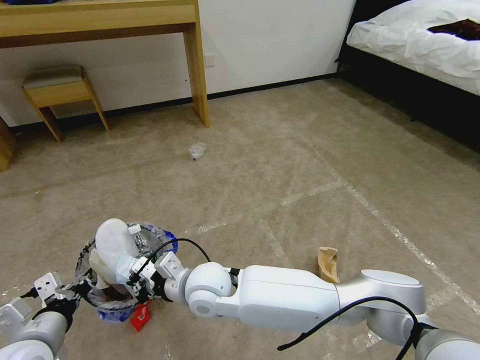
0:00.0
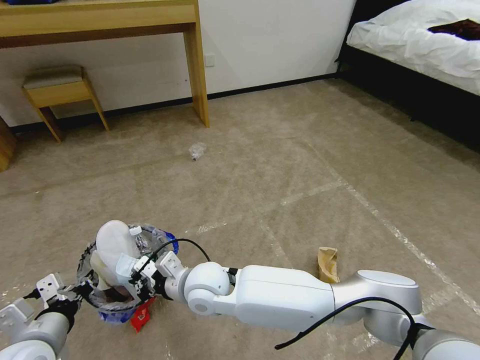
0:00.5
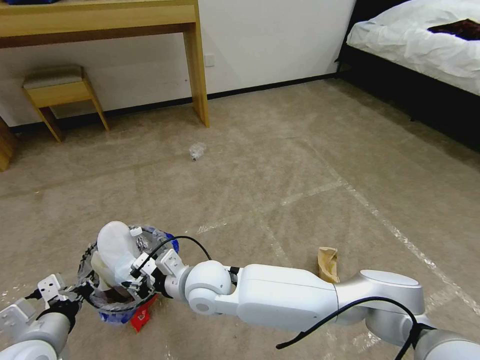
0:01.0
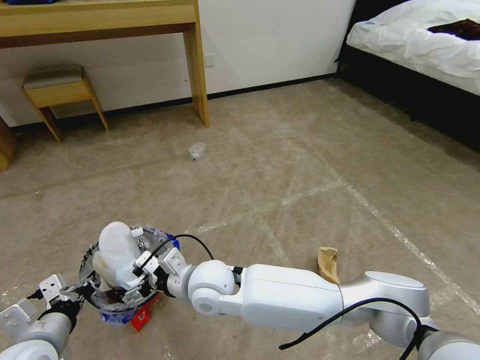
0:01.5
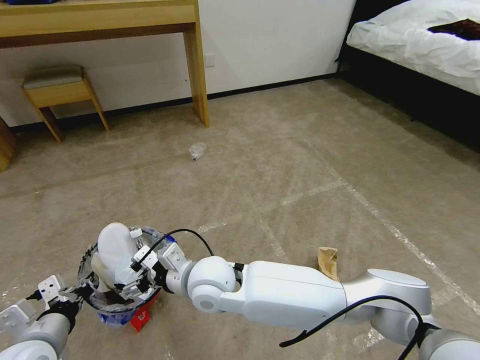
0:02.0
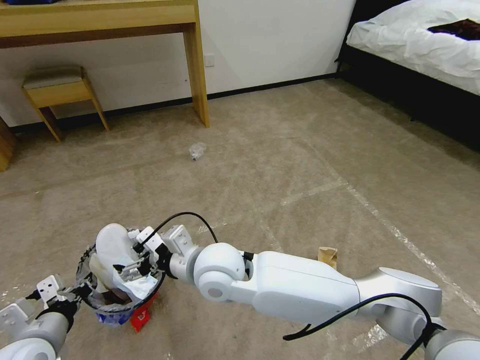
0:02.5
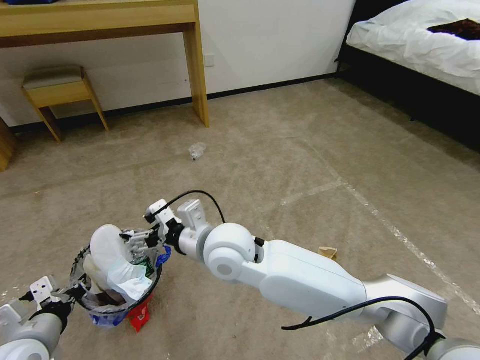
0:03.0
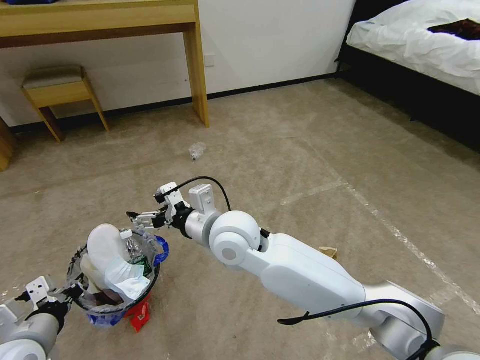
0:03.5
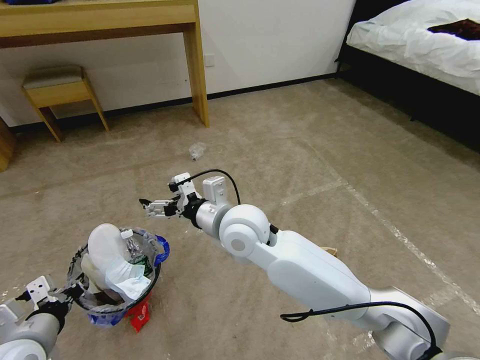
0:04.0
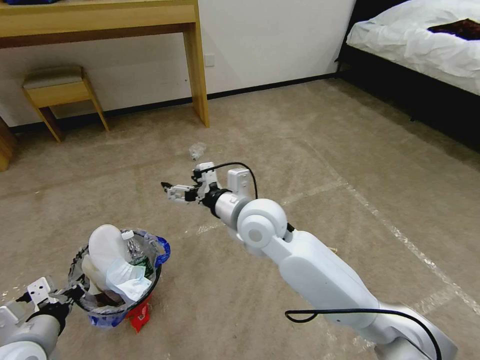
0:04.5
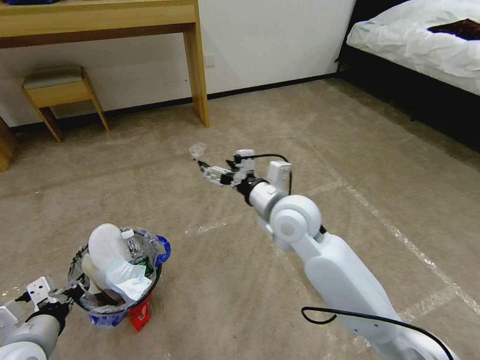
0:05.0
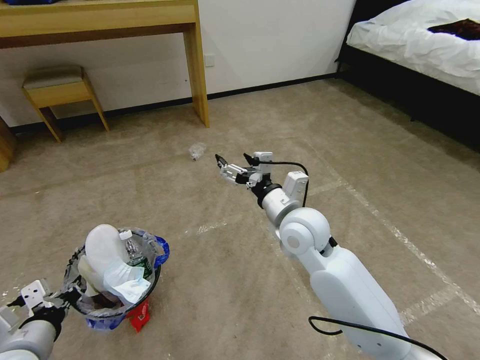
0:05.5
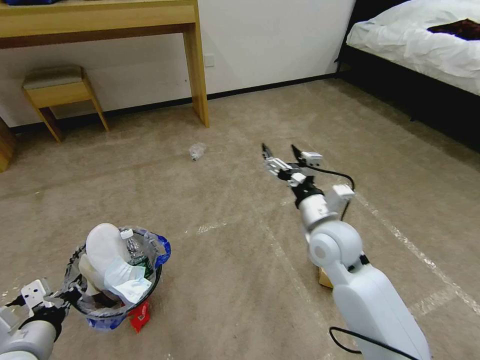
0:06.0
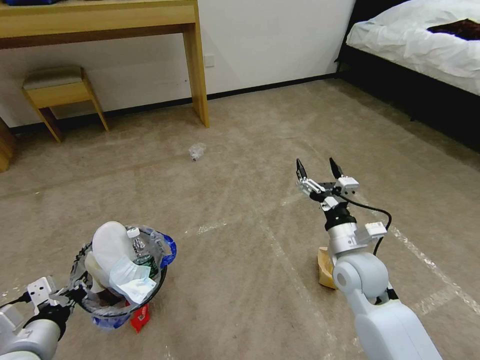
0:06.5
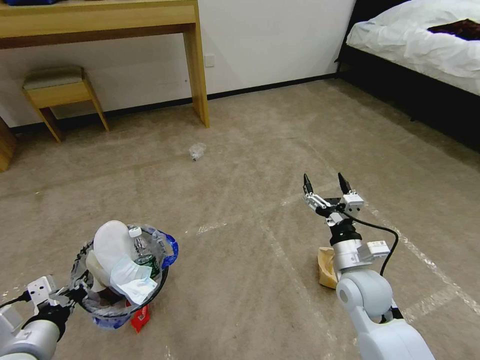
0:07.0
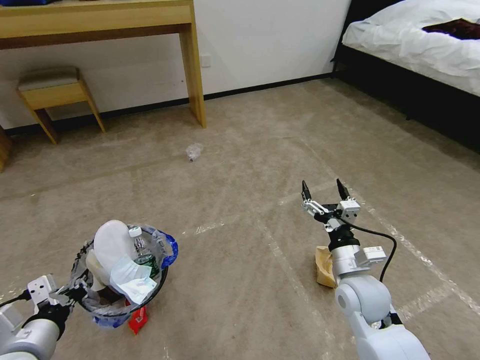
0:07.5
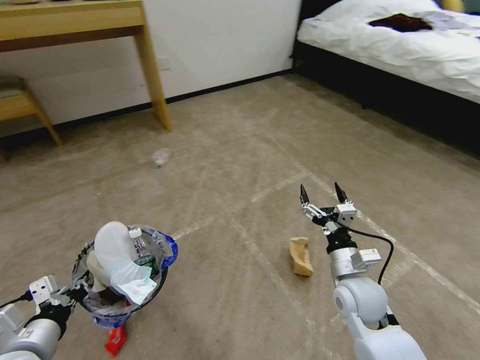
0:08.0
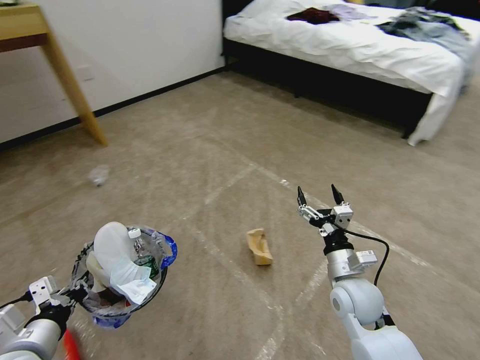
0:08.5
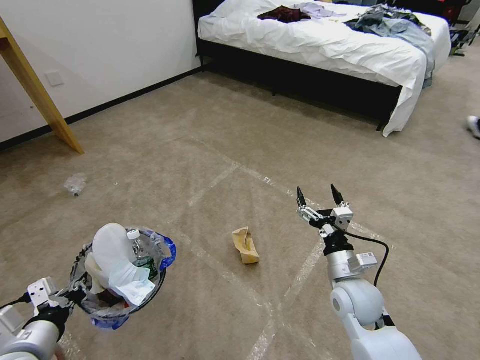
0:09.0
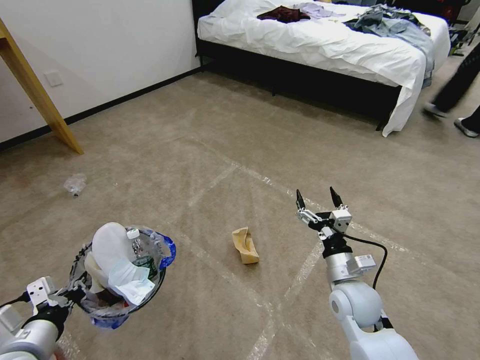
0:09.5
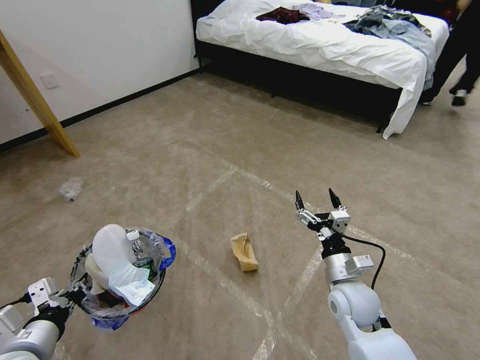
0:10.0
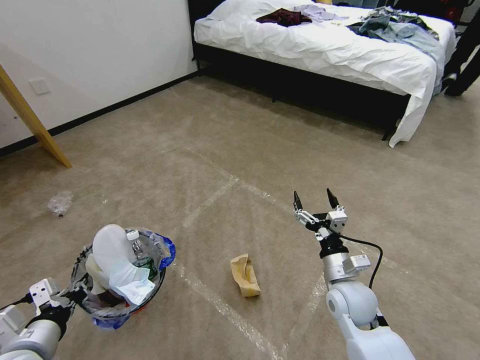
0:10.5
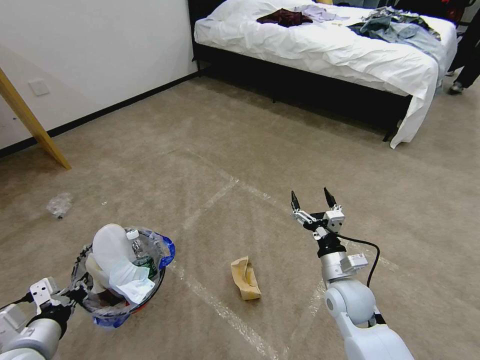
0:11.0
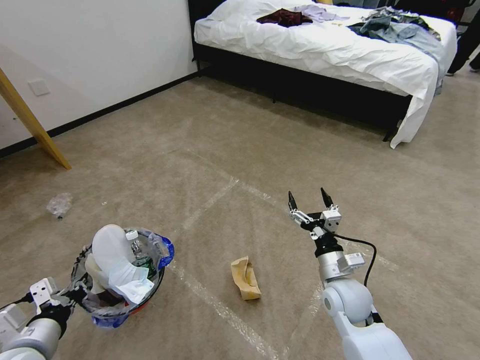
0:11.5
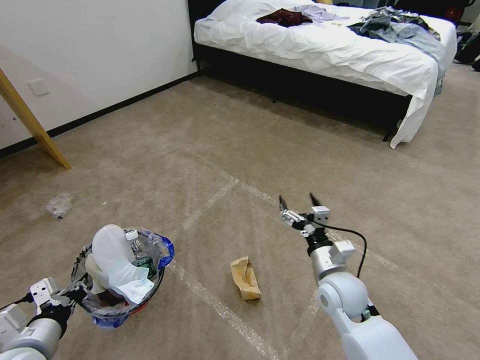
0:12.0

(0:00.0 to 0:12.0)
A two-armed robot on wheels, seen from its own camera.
Task of the whole recording: Pick up the trash bin and place the garbage on the floor into it.
0:00.0 - 0:02.0: The right gripper opens up.
0:02.0 - 0:04.0: The right gripper is displaced upward, to the right and forward by some 15 cm.
0:04.0 - 0:06.0: The right gripper travels to the right by roughly 20 cm.
0:06.0 - 0:08.0: The right gripper heads downward, backward and to the right, covering some 15 cm.
0:10.0 - 0:12.0: The grippers stay close to where they were, moving slightly.

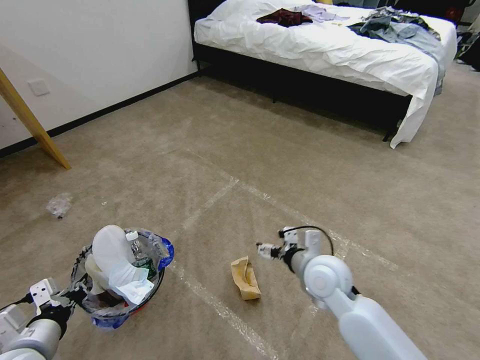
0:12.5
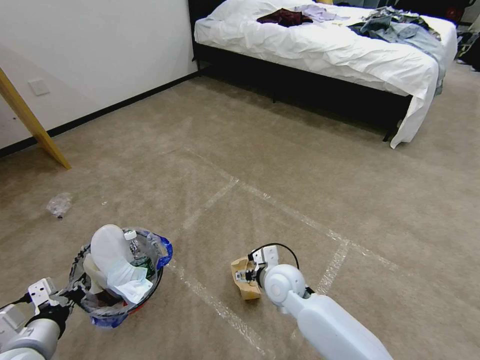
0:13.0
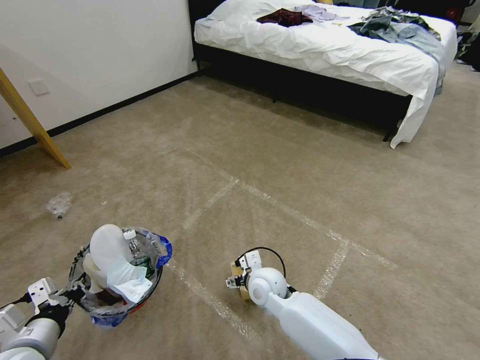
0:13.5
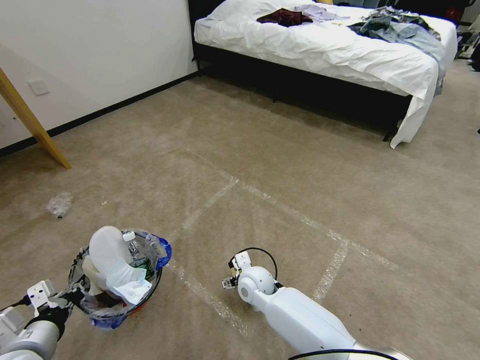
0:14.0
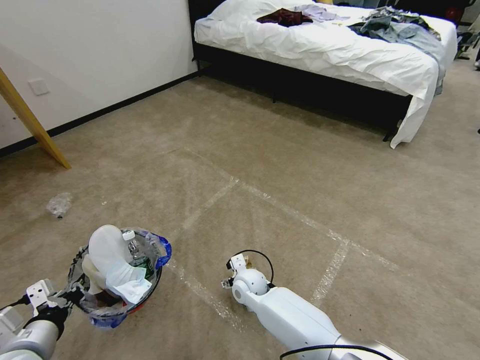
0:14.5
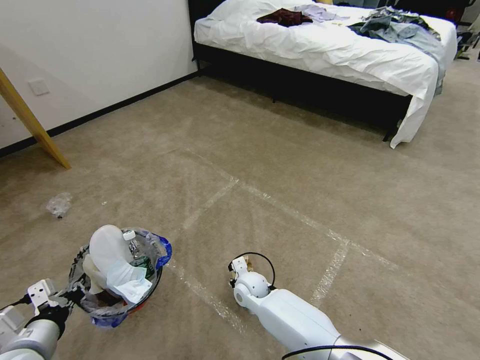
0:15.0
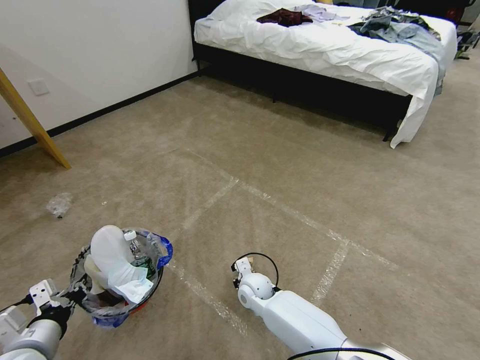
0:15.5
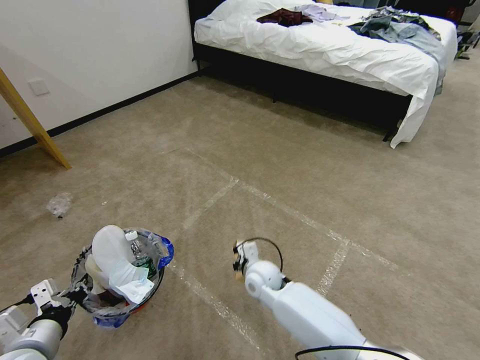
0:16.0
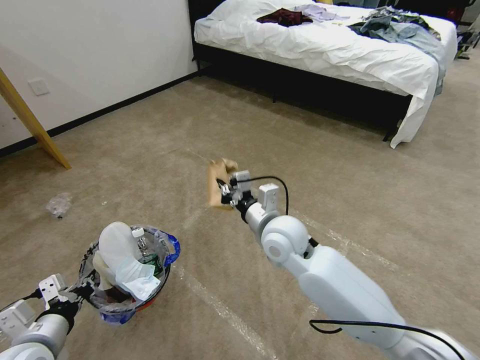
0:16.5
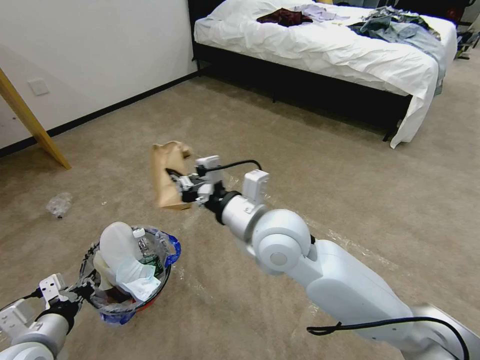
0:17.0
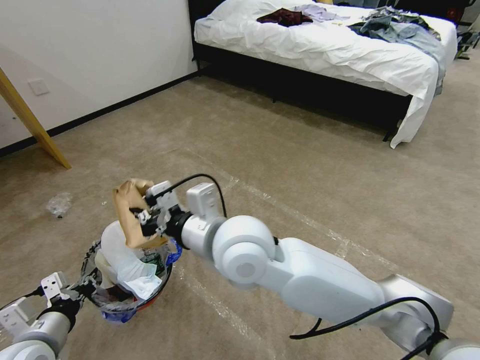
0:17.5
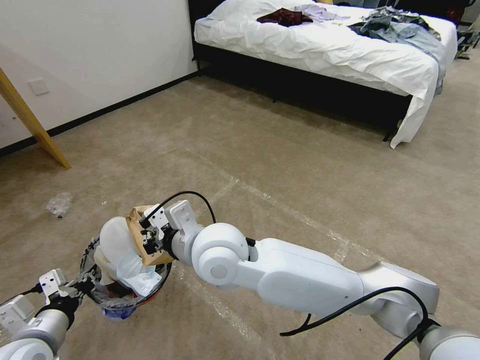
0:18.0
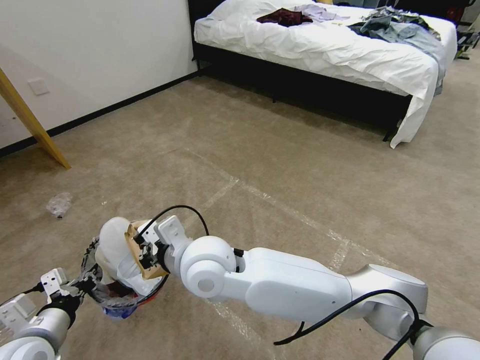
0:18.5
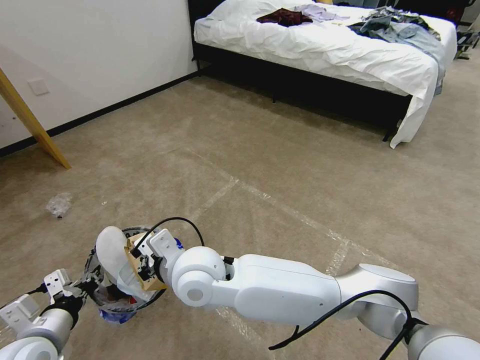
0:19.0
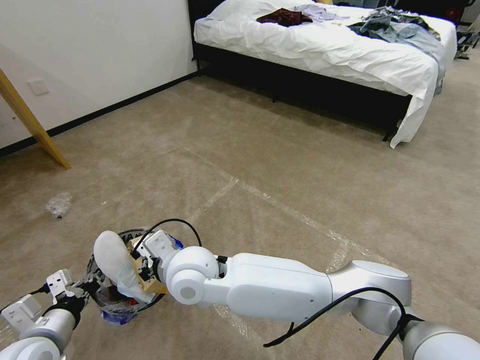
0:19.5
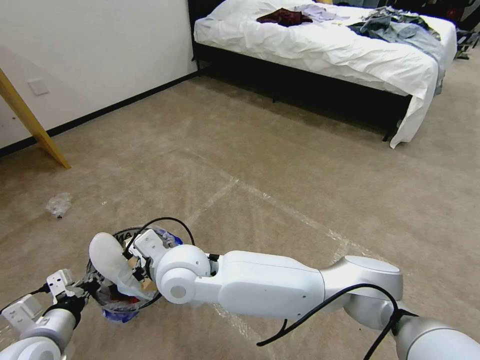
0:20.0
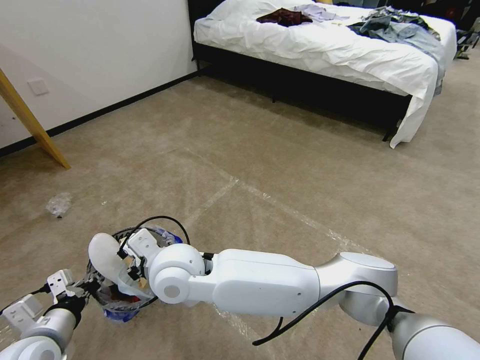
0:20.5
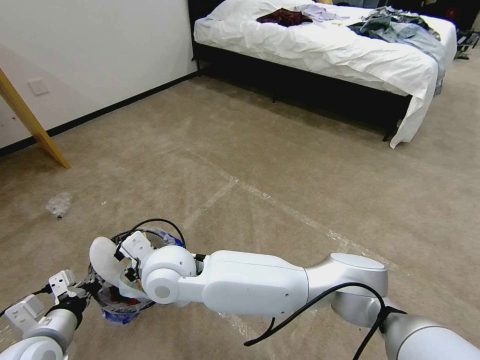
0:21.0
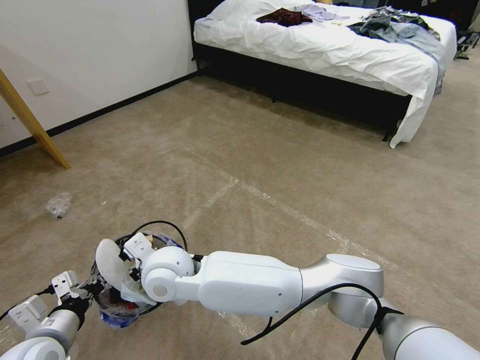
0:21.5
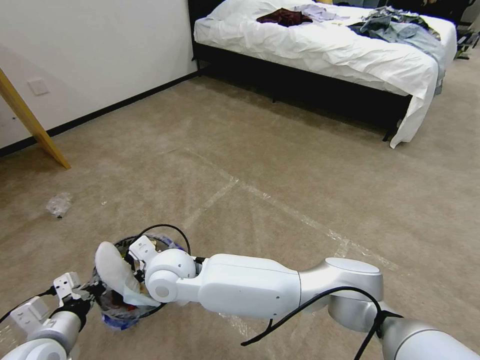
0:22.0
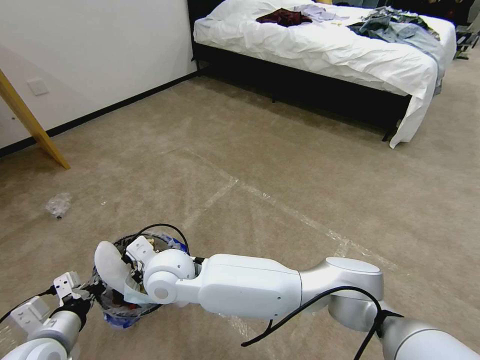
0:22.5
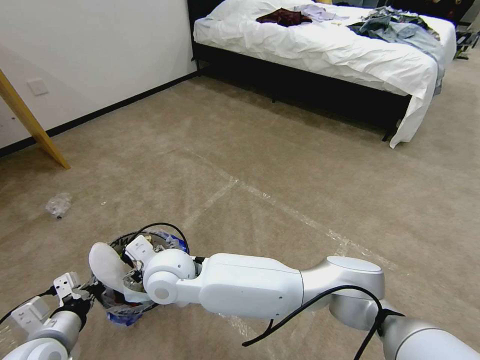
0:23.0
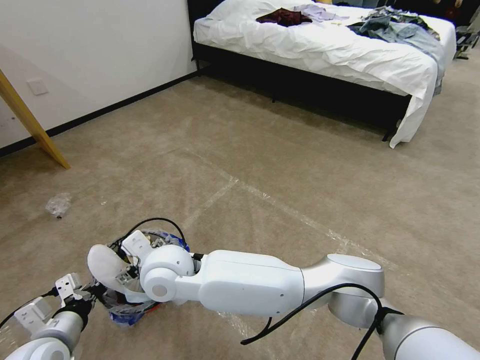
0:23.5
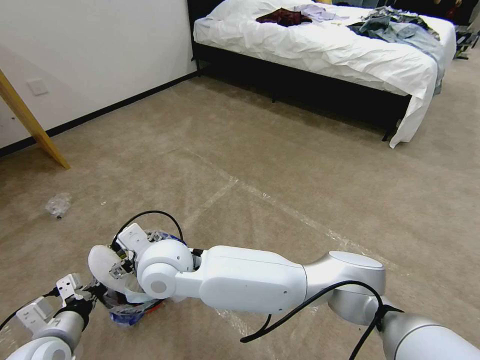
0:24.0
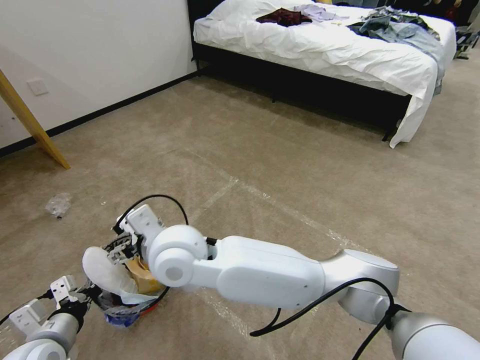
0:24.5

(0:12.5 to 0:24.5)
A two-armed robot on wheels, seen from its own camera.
Task of the whole recording: Pick up the trash bin and place the garbage on the floor into it.
0:12.5 - 0:14.5: The right gripper is displaced downward and to the left by roughly 25 cm.
0:14.5 - 0:16.5: The right gripper is displaced upward by about 20 cm, and closes its fingers.
0:16.5 - 0:18.5: The right gripper travels to the left, backward and upward by about 20 cm.
0:18.5 - 0:20.5: The right gripper heads to the left, covering roughly 5 cm.
0:20.5 - 0:22.5: The right gripper moves some 5 cm.
0:22.5 - 0:24.5: The right gripper is displaced upward by some 10 cm, and opens.

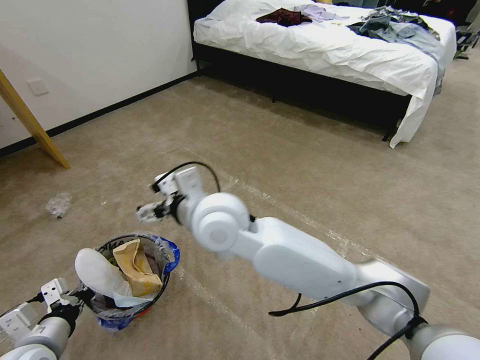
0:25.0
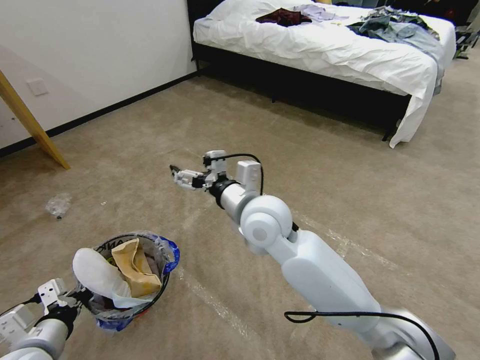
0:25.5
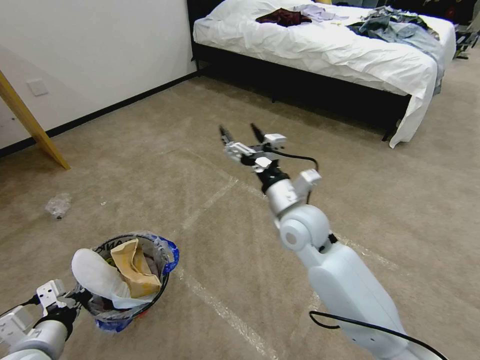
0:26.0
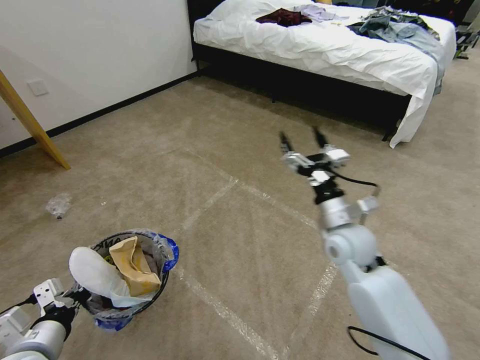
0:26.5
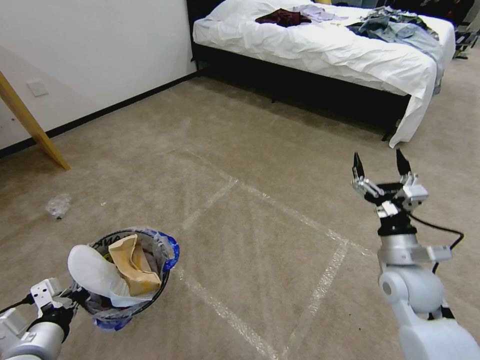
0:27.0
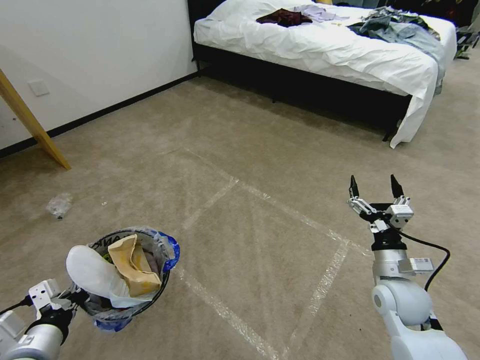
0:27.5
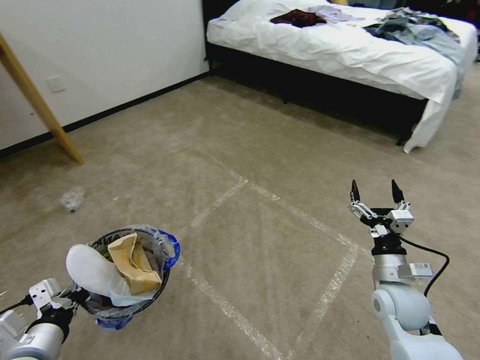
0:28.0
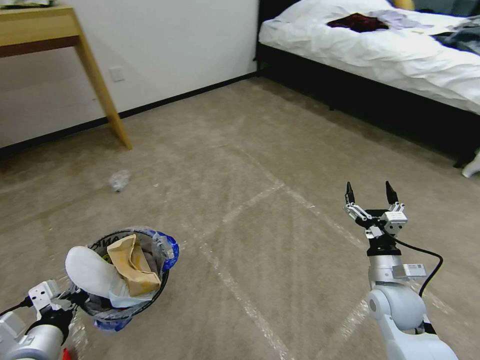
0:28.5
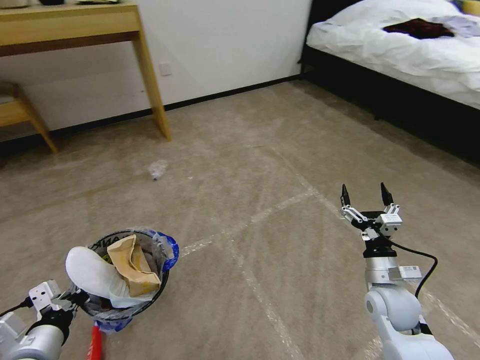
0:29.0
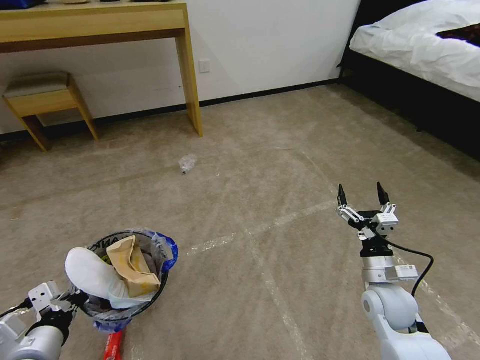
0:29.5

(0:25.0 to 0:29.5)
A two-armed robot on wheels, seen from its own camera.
Task of the whole recording: Pick up the trash bin and place the garbage on the floor into it.
0:25.0 - 0:27.0: The right gripper moves to the right, some 35 cm.
0:27.0 - 0:29.5: The right gripper goes about 10 cm downward.
